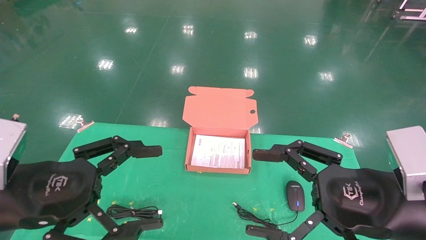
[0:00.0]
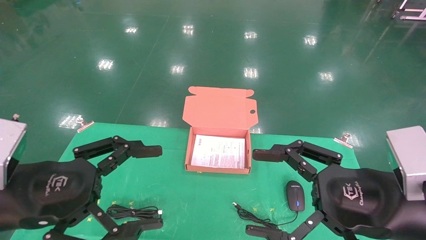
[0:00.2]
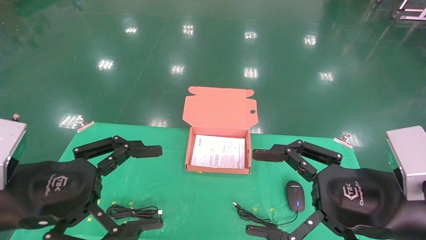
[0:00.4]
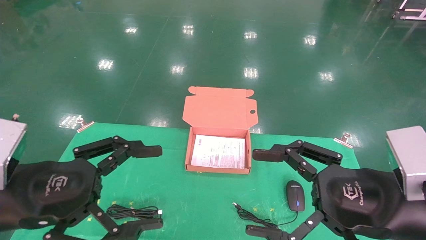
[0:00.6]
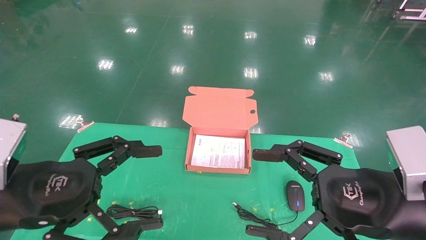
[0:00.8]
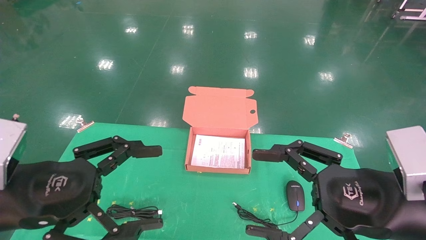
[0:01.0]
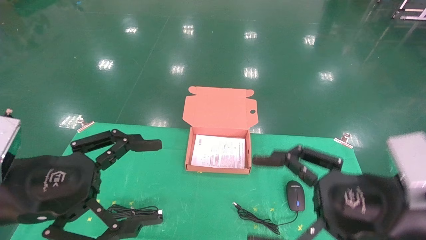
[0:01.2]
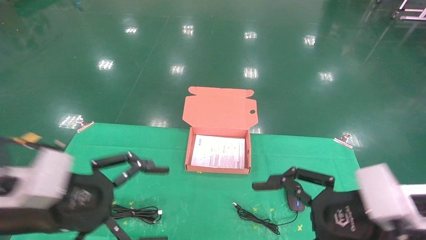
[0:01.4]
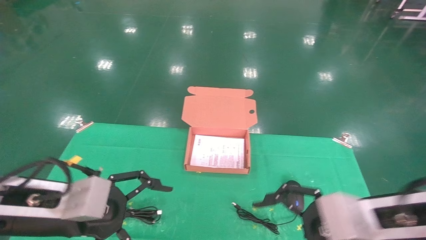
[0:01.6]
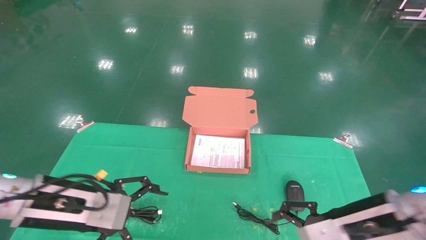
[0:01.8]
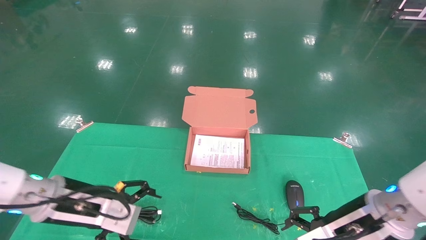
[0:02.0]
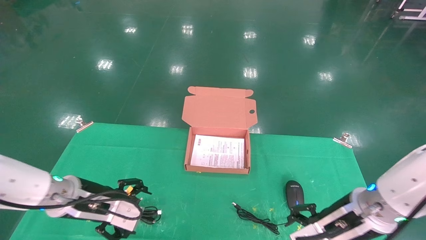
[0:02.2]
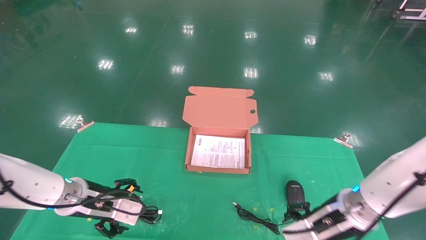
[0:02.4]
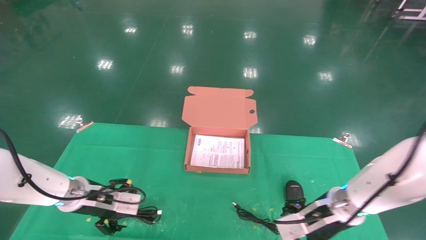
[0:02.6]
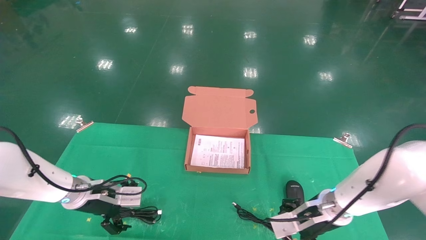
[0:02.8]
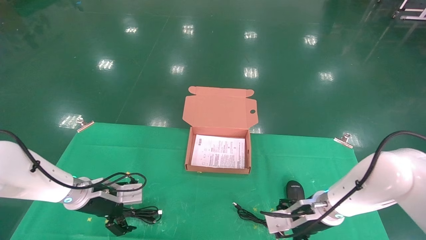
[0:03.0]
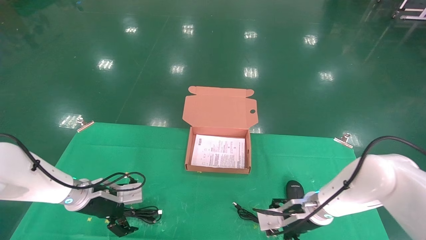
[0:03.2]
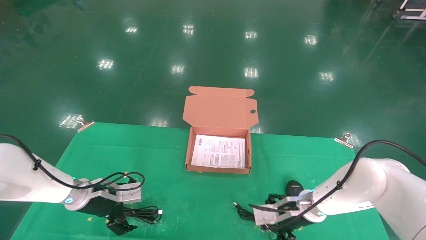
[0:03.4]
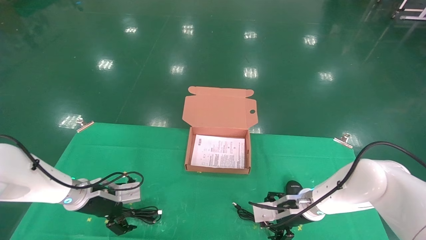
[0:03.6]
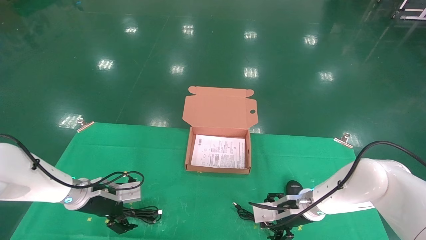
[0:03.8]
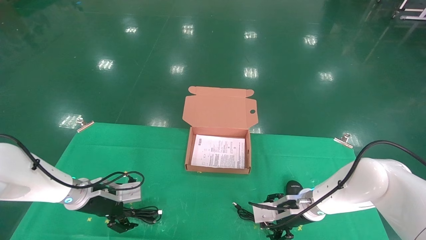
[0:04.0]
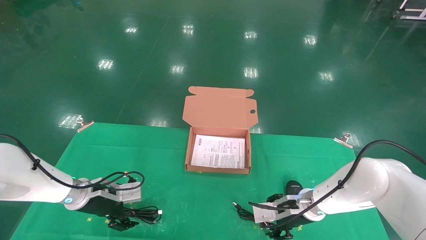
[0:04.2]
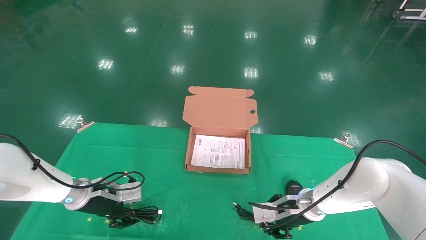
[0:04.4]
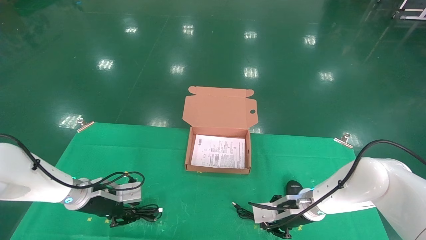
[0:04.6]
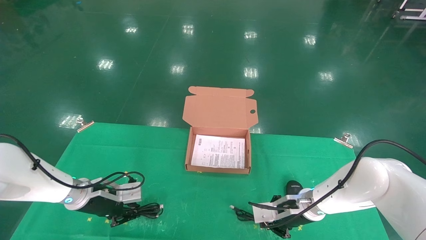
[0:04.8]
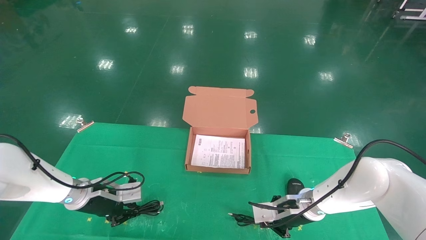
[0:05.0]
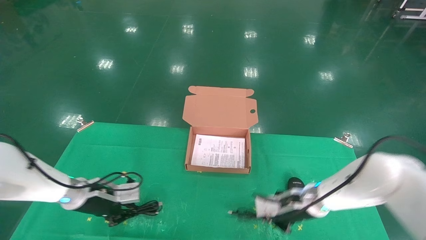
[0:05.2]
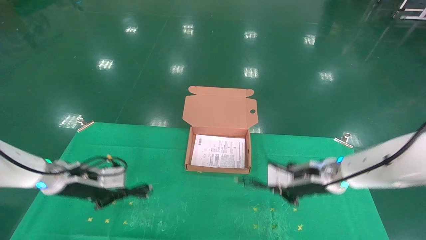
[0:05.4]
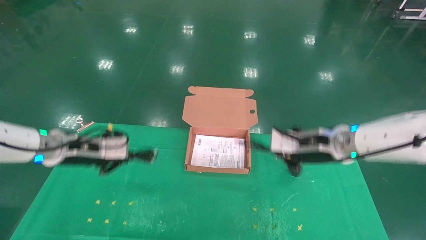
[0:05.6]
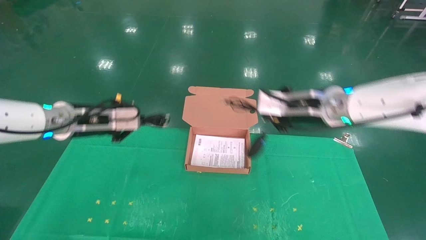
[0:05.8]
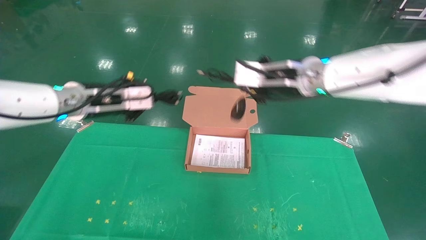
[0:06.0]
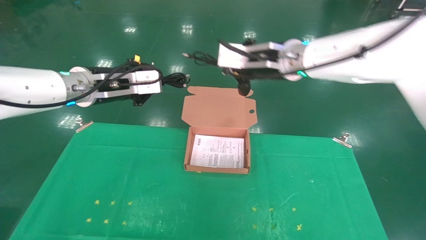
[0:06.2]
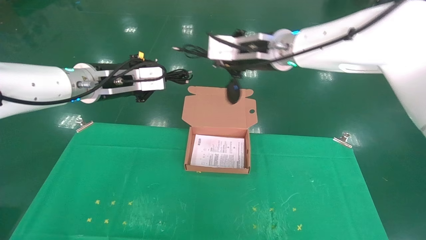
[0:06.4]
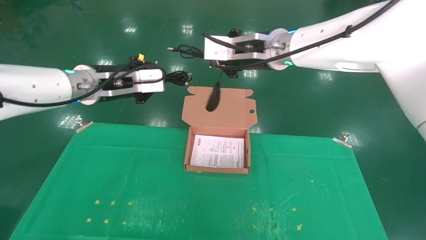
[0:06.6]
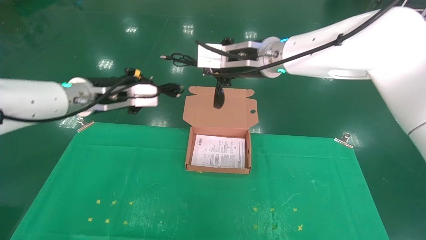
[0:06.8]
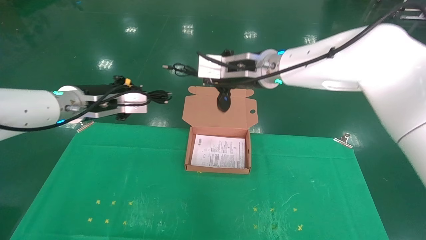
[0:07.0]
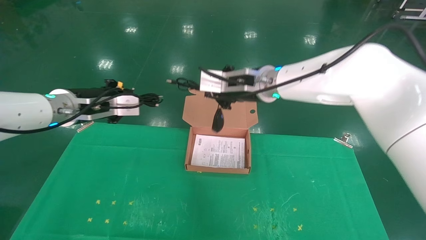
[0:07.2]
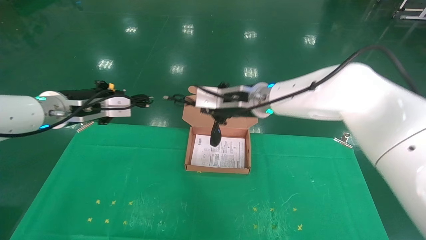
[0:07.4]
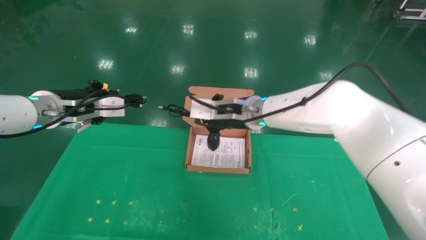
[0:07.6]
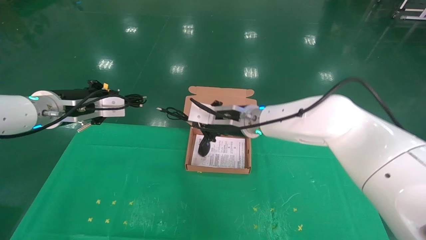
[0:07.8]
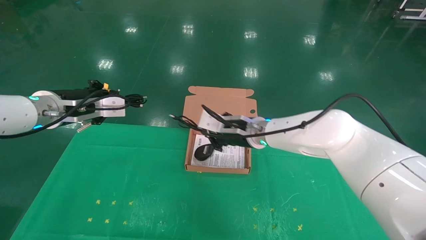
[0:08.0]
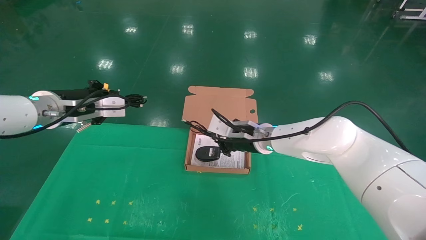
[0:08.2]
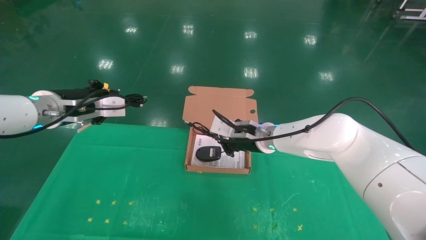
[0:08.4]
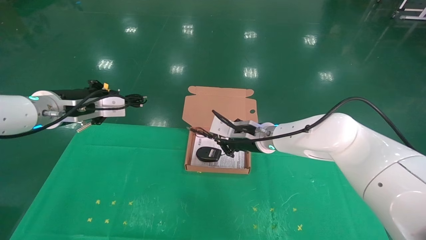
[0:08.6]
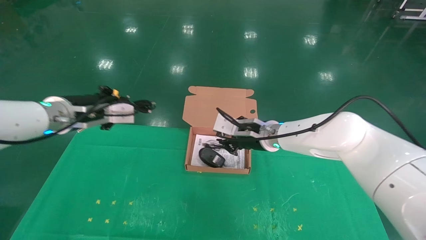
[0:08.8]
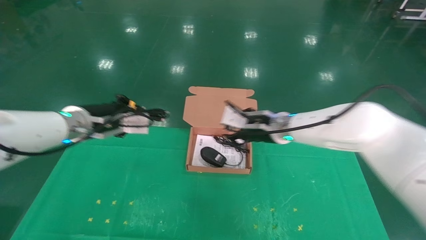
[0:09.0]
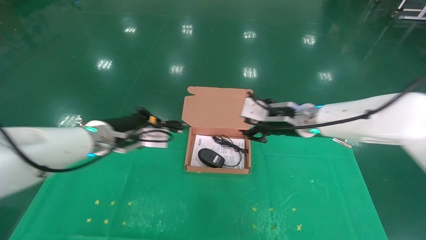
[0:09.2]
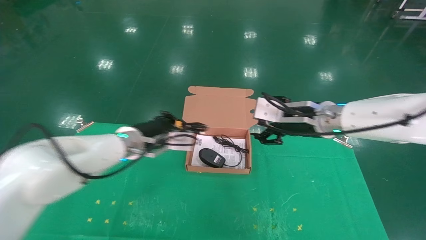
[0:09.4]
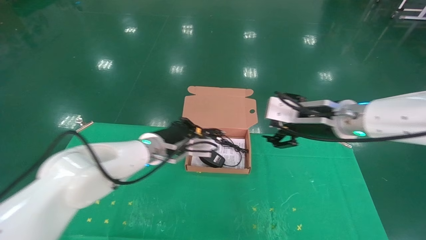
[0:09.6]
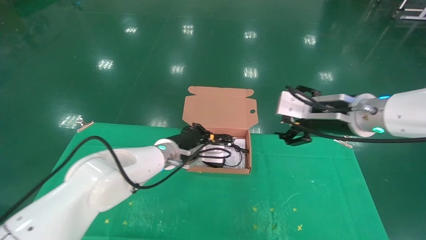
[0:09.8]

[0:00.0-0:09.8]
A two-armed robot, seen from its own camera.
Task of the whole recording: grasp data cable left put into box grasp mouse right put into box.
Step, 0:01.2 to 0:05.8: Grab and pick up both the mouse and power cord from the accessory packaging area at the same time.
0:01.4 to 0:02.8: Both grippers move forward and downward, approximately 20 cm.
0:02.8 to 0:04.2: The right gripper ends up some 5 cm from where it was.
0:04.2 to 0:05.6: The two grippers go some 15 cm upward. The left gripper closes; the right gripper closes its fingers.
0:05.6 to 0:07.0: The right gripper moves to the left and upward, approximately 20 cm. The left gripper shifts roughly 10 cm upward.
0:07.0 to 0:08.4: The right gripper heads downward, covering some 15 cm.
0:08.4 to 0:09.8: The left gripper goes about 25 cm to the right and downward, while the right gripper travels to the right, backward and upward by roughly 20 cm, and opens up.

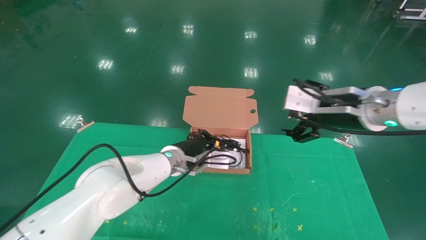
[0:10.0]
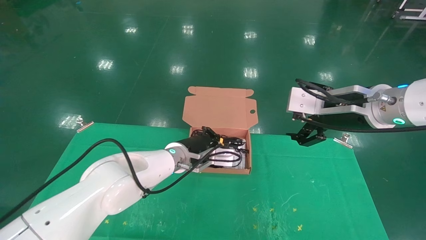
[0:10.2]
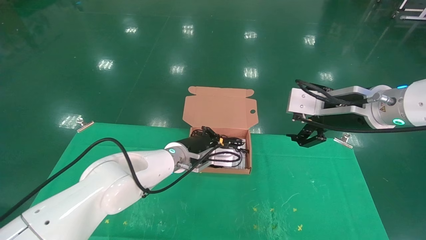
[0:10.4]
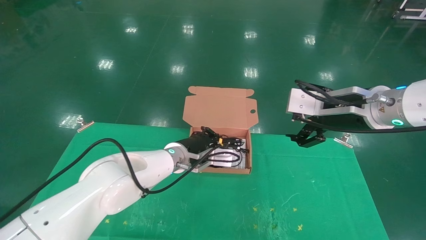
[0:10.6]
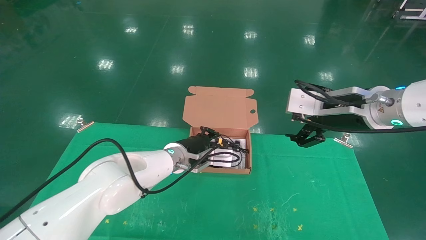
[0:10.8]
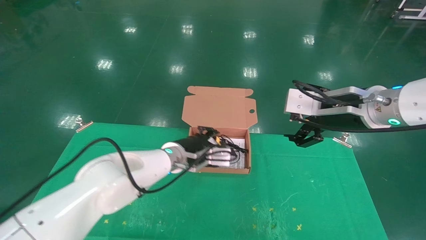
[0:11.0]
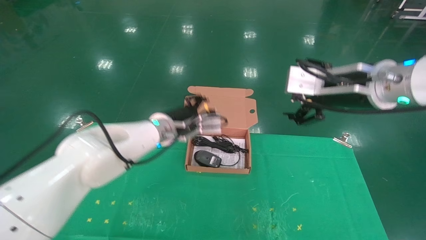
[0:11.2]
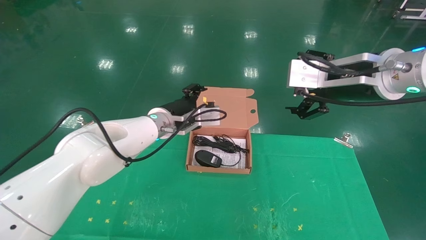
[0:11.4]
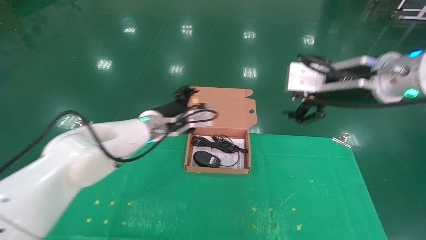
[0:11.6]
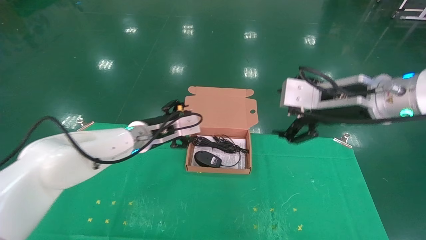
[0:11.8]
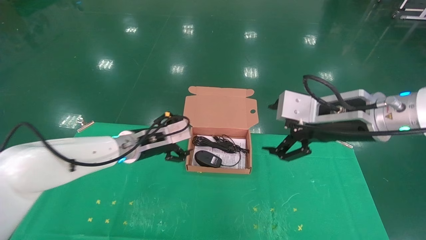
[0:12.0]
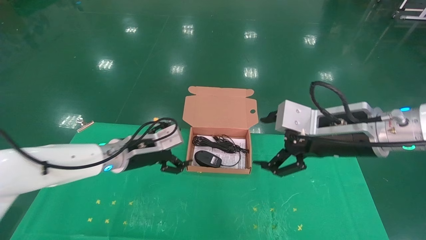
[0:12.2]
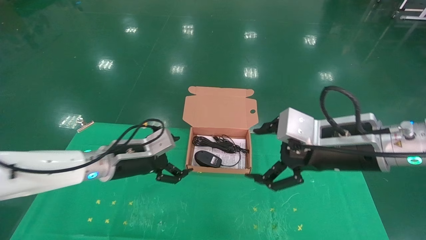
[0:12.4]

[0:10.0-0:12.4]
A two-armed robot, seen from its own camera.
Task of the whole recording: grasp data cable left put into box grasp mouse right put into box.
0:10.0 to 0:11.2: The left gripper travels upward by about 5 cm, and opens.
0:11.2 to 0:12.4: The left gripper heads to the left and backward, covering about 15 cm, and opens up, while the right gripper shifts about 10 cm downward.
